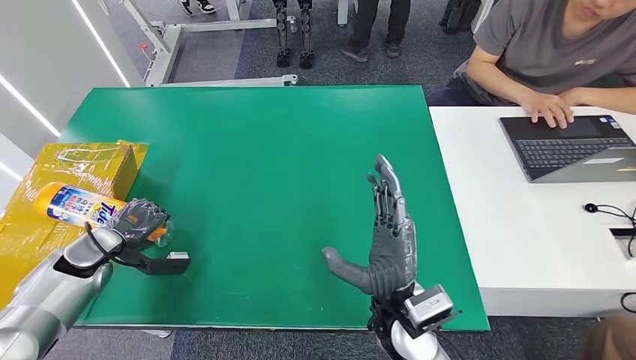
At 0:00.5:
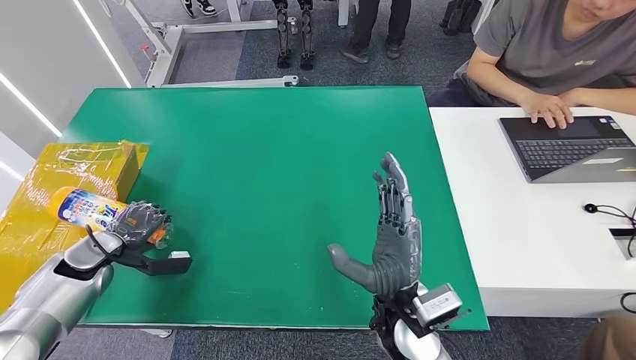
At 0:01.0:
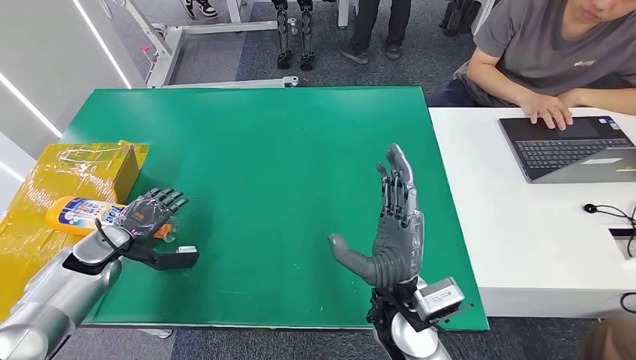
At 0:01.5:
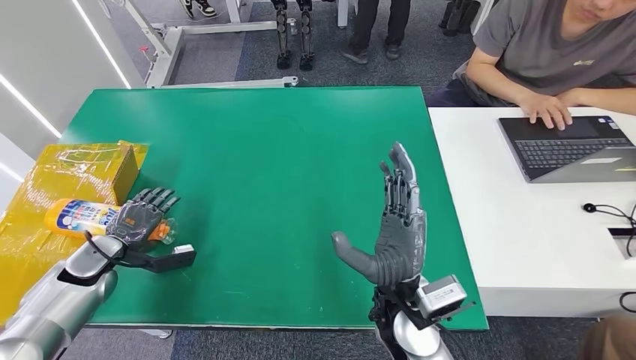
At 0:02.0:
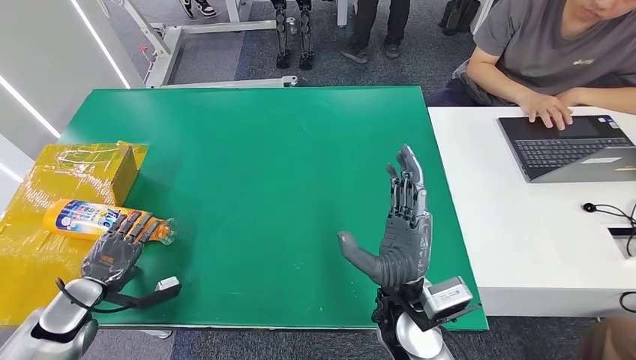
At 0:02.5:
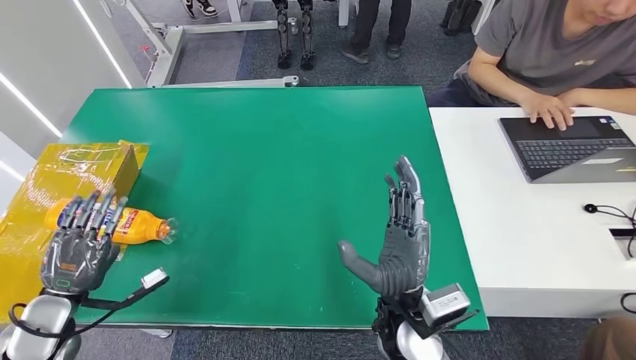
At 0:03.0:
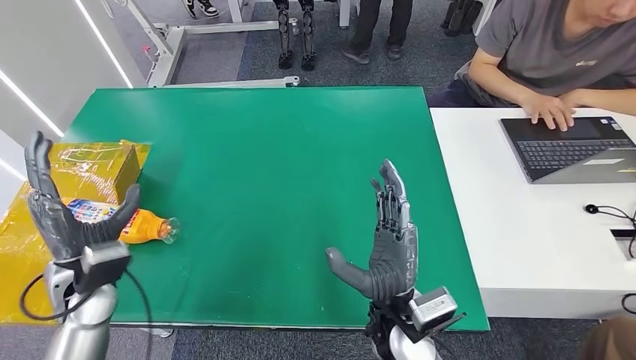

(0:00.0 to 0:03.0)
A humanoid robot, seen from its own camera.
Step, 0:00.0 - 0:03.0: Turn the bottle to the front side.
0:00.0 - 0:01.5: The hands stay close to where they were, moving slightly.
0:01.5 - 0:03.0: The left hand heads to the right, upward and backward, covering approximately 15 cm.
